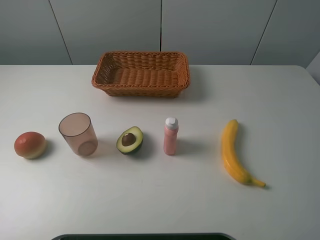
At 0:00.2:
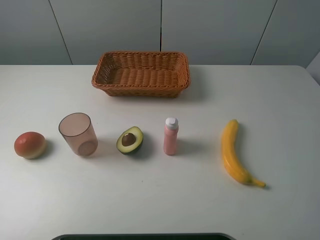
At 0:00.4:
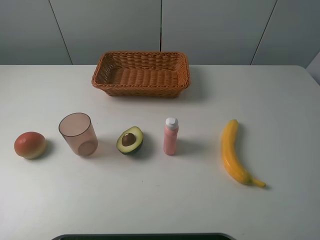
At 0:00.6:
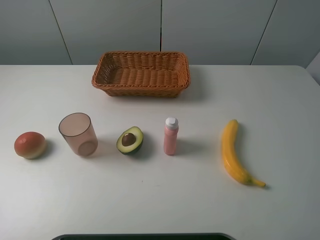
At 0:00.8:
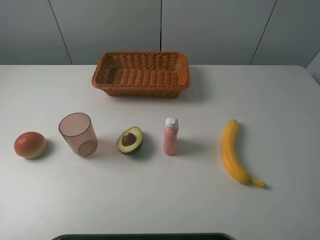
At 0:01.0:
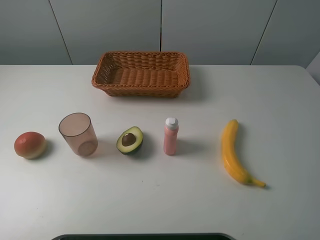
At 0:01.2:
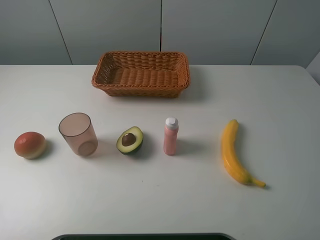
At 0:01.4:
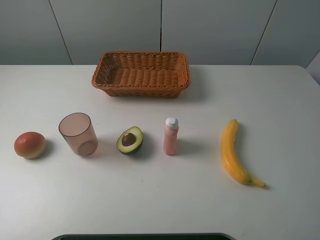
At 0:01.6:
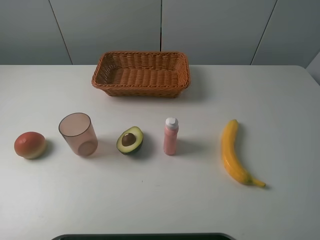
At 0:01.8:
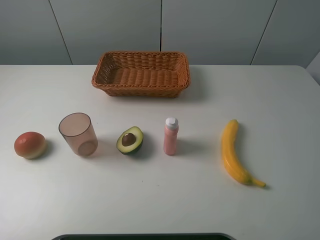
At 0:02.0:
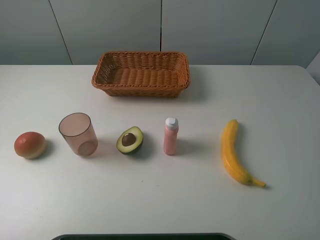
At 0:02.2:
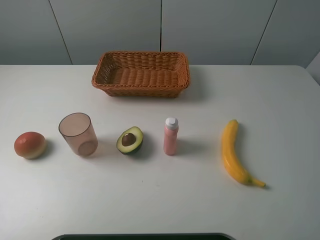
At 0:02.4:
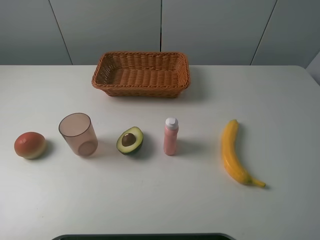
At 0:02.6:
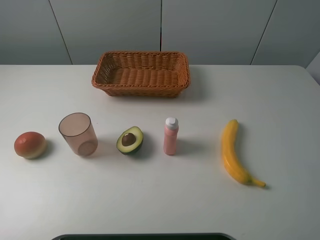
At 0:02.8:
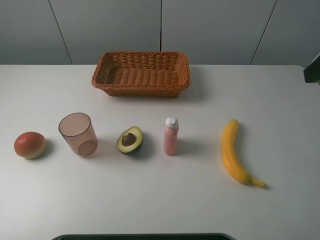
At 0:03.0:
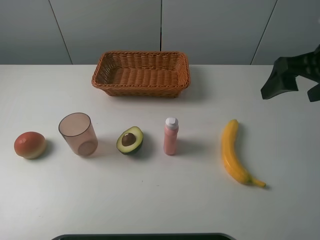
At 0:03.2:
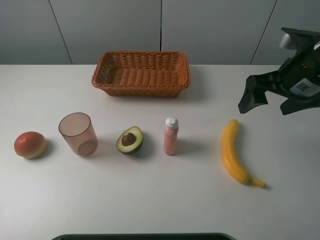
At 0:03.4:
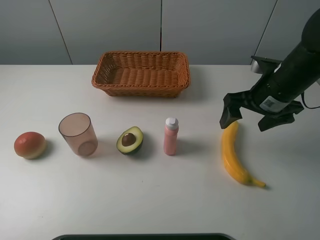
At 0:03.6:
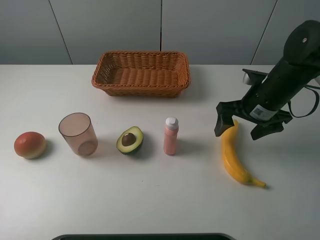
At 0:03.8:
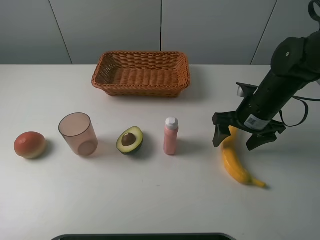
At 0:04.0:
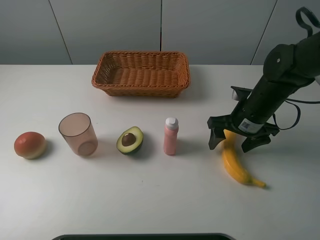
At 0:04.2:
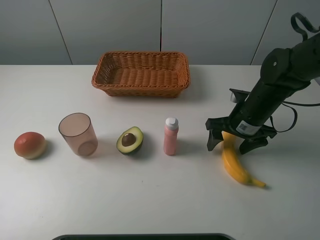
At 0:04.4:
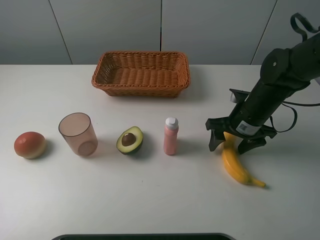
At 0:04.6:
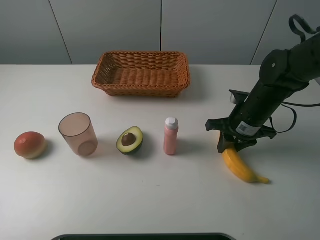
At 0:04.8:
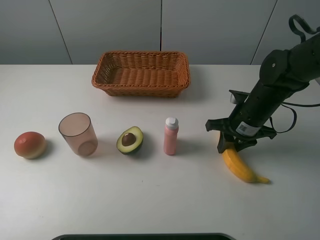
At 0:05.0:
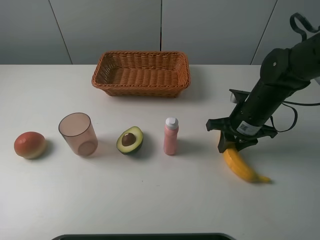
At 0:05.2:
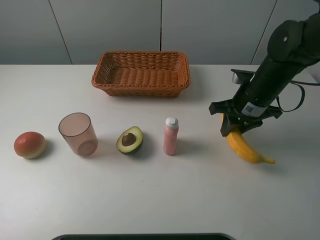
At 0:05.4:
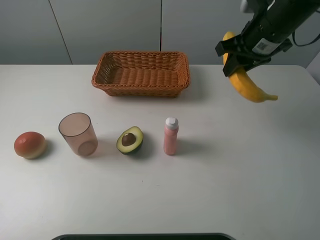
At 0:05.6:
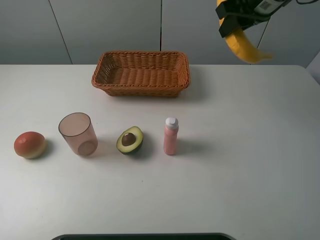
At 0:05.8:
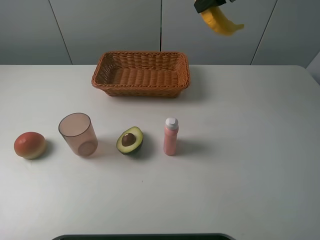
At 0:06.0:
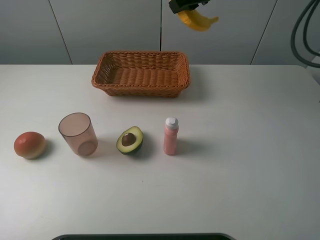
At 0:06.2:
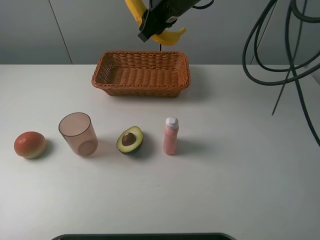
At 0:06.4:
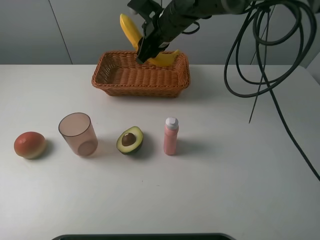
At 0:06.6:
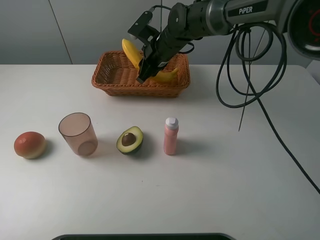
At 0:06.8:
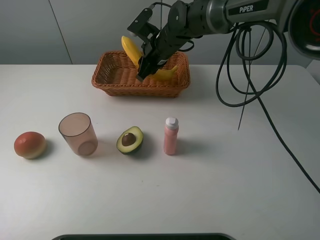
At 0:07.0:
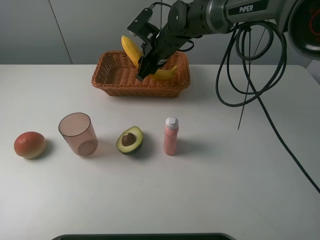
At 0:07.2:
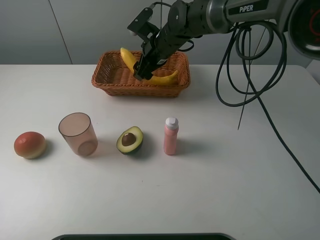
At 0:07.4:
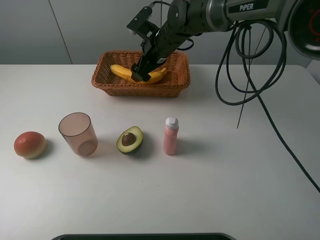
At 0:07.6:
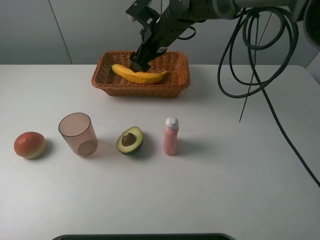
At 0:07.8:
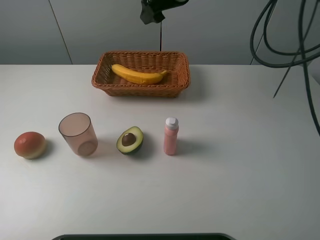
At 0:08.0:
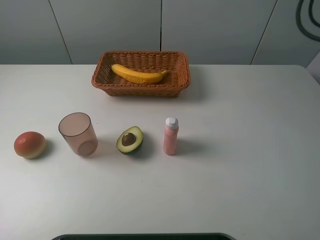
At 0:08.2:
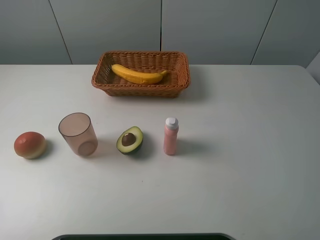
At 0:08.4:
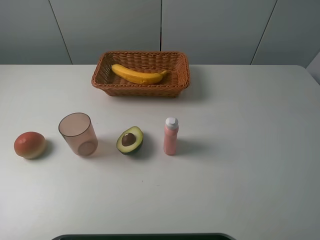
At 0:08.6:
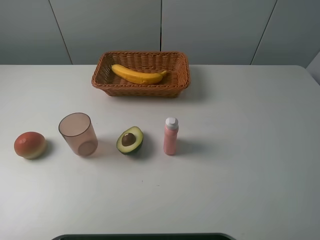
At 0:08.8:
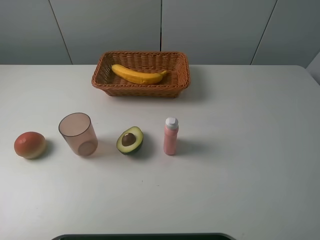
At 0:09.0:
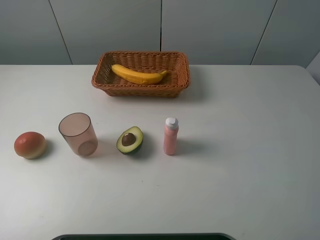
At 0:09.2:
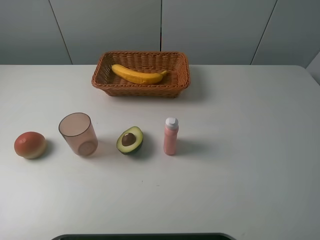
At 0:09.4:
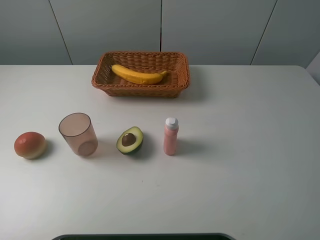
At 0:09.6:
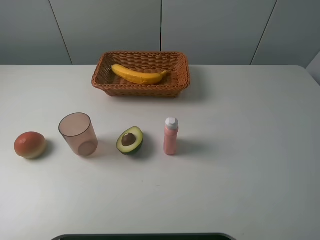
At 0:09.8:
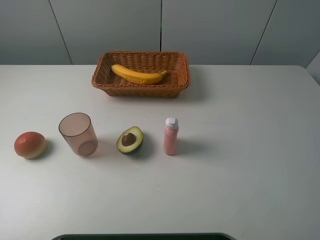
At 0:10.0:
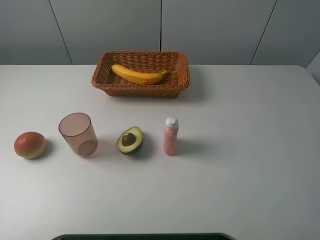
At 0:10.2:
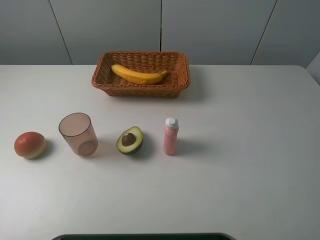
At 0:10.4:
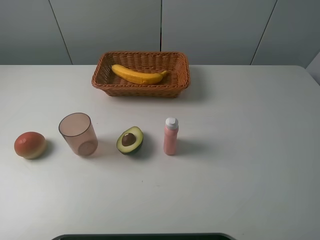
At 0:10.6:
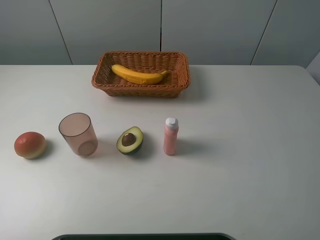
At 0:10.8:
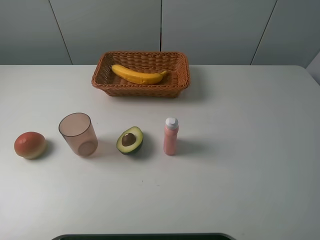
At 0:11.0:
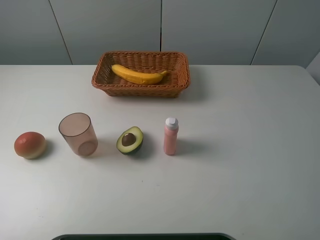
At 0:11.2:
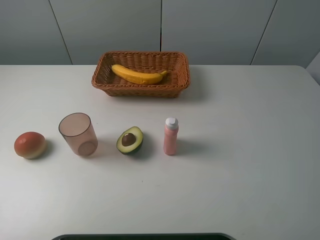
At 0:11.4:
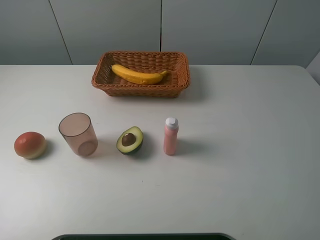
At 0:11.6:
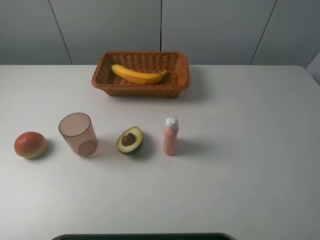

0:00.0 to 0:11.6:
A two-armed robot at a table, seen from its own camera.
Task of the whole recording: randomly pick up an item from the table and put it in the basket.
Step, 0:00.0 to 0:04.6: Grasp the banana with the right gripper.
Step, 0:04.8 to 0:07.6: Place the banana into the basket with the right gripper.
0:00.0 to 0:01.4: Both grippers stay about where they are.
0:02.8 to 0:04.4: The right gripper is displaced downward and forward by roughly 25 cm, and closes up.
0:04.4 to 0:05.8: The right gripper moves upward and forward, about 25 cm, and closes.
0:05.8 to 0:07.2: The right gripper heads downward and to the left, covering approximately 20 cm, and opens its fingers.
0:07.2 to 0:08.8: The right gripper goes some 50 cm backward, to the right and upward.
0:10.2 to 0:11.6: Neither gripper changes place.

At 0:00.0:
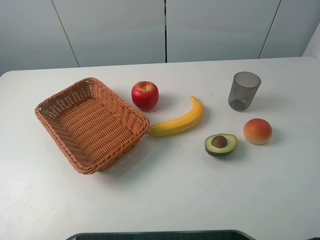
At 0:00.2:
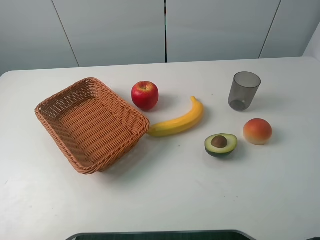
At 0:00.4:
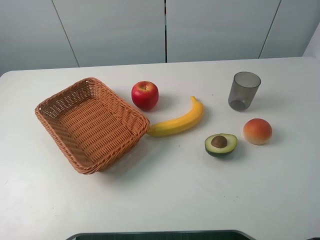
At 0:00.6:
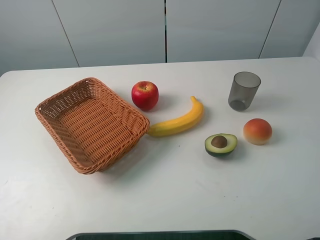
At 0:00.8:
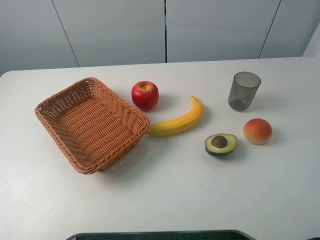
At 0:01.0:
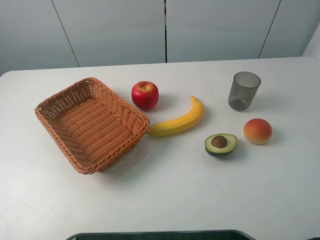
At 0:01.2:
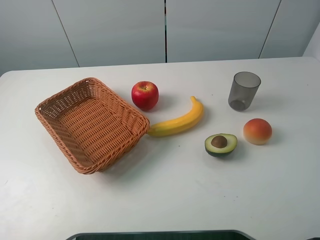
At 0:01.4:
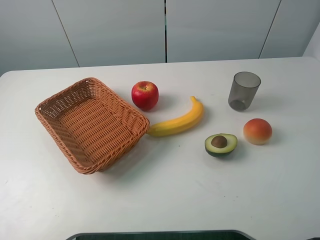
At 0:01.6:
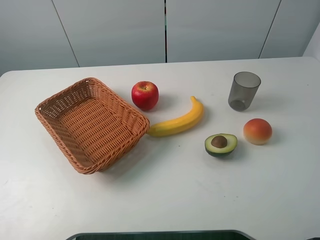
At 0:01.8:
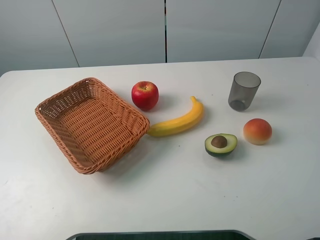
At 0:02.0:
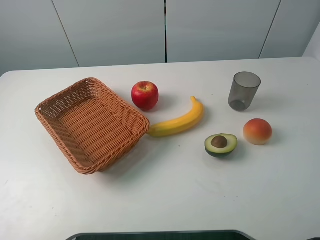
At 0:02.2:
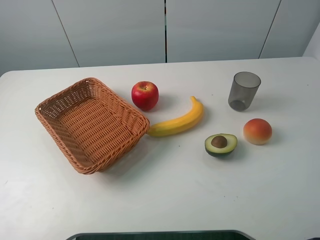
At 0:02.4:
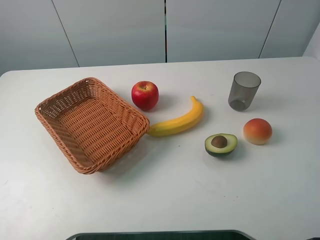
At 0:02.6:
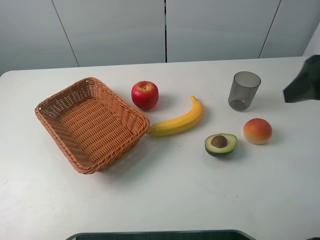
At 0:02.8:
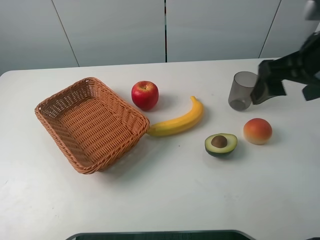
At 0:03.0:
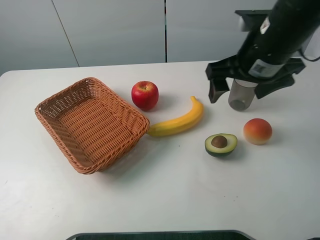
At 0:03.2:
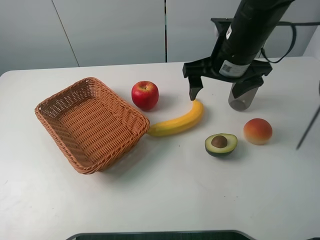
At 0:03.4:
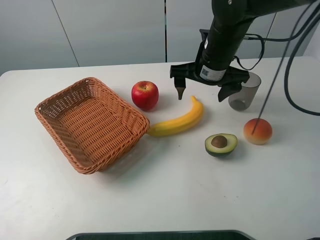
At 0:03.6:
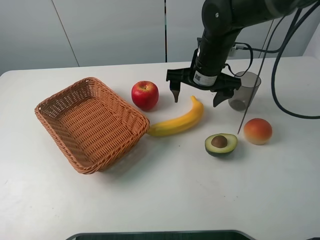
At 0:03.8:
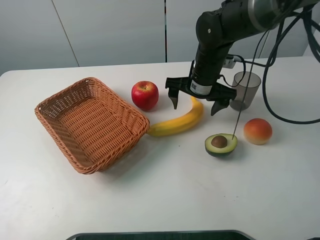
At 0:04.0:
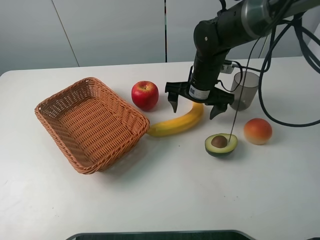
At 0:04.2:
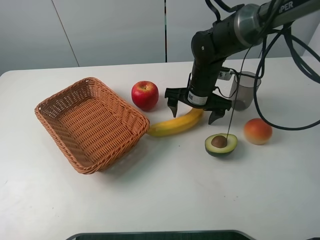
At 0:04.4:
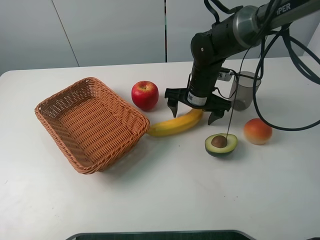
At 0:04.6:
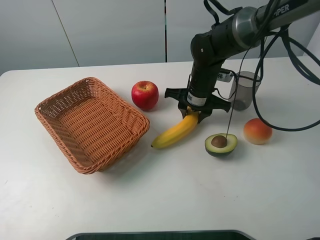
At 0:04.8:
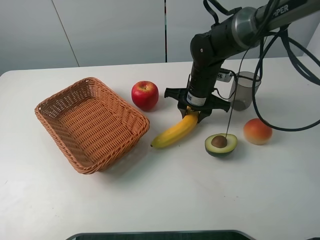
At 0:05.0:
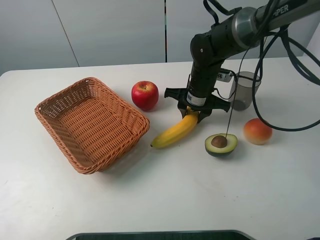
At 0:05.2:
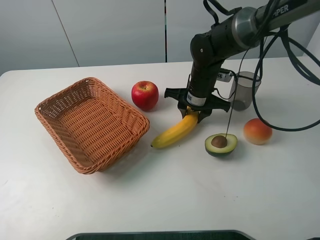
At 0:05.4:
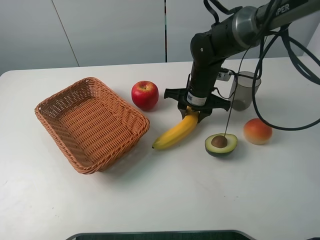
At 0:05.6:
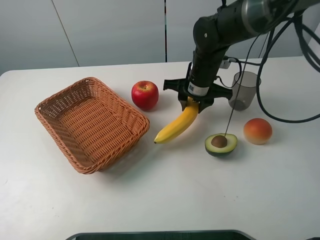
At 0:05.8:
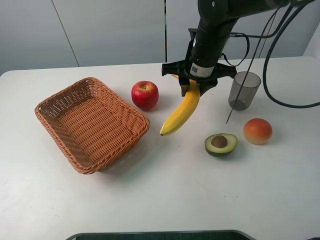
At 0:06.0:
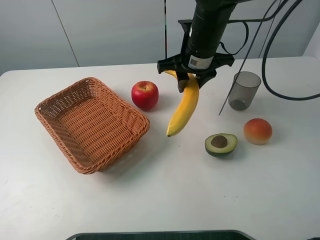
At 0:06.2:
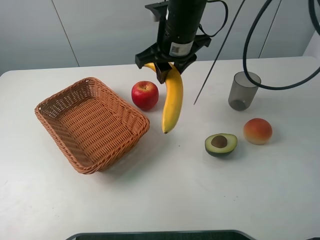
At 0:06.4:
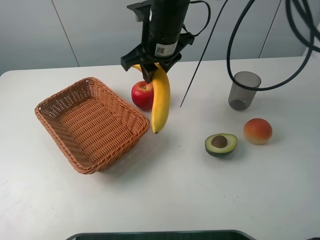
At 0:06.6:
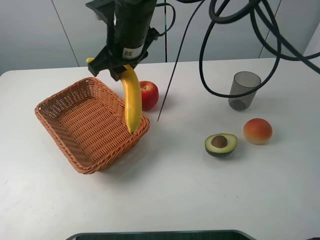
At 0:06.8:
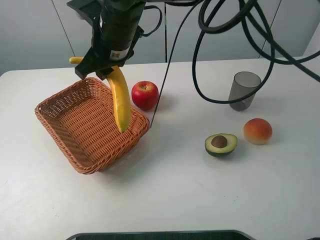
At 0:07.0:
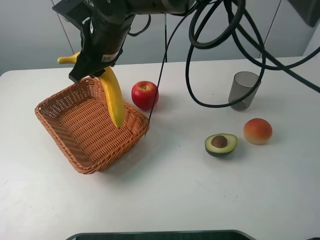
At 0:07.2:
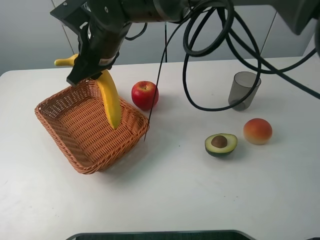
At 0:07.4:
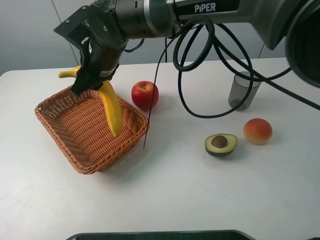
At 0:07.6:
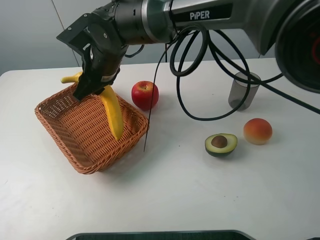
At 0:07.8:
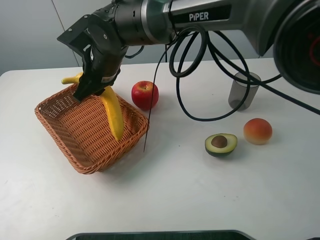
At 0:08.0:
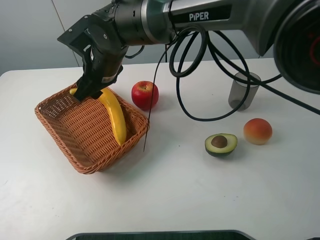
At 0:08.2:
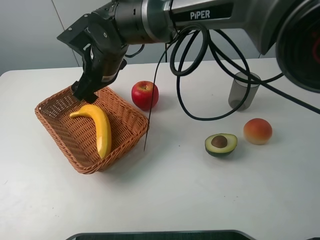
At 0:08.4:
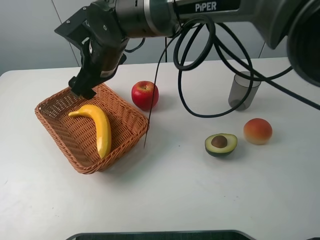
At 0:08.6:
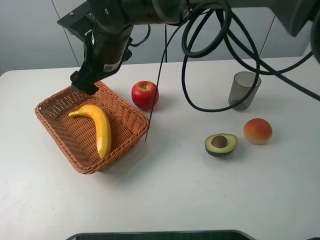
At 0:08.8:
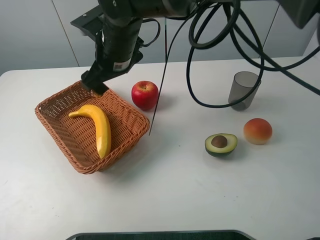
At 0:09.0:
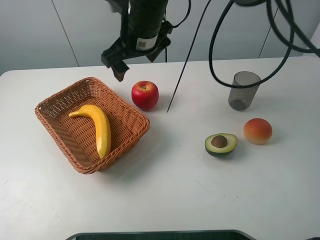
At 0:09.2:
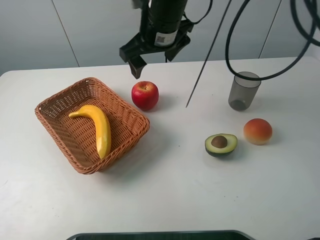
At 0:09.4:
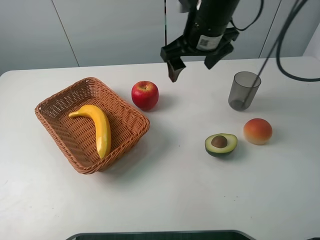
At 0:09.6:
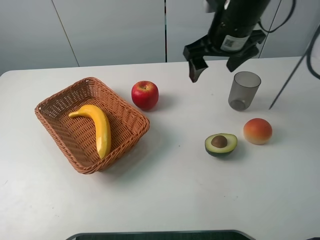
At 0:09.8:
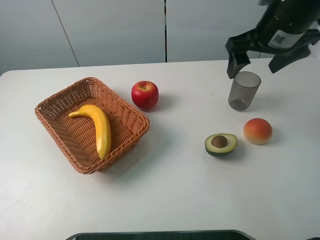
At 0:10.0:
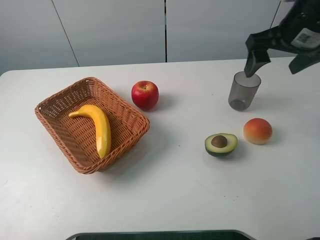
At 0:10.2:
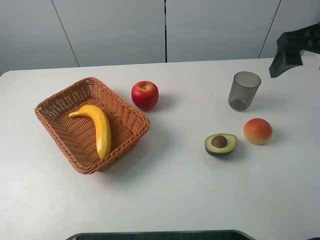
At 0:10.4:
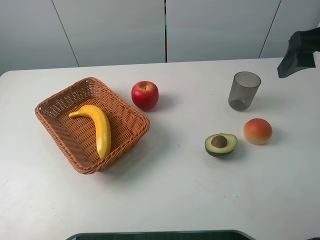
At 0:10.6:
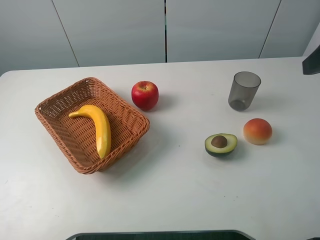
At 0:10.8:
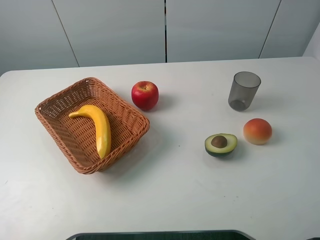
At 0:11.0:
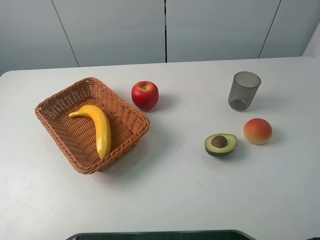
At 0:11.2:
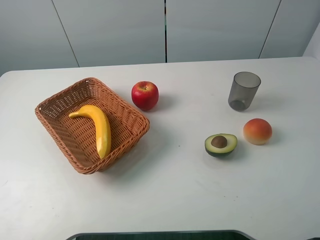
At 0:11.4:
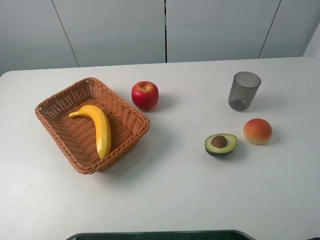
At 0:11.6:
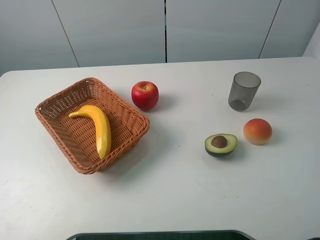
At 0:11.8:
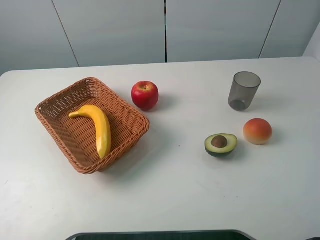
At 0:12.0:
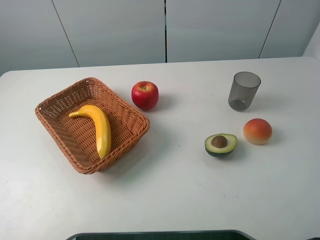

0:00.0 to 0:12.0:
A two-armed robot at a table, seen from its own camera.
Task of the whole recording: randomly pick up an item from the table and put it in the basket.
Step, 0:00.0 to 0:04.8: Grasp the banana with the right gripper.
Step, 0:05.0 to 0:08.4: Place the banana into the basket with the right gripper.
0:00.0 to 0:01.6: The two grippers keep their place.
0:01.6 to 0:03.0: The right gripper is displaced forward and to the left by approximately 30 cm.
0:03.0 to 0:04.4: The right gripper shifts some 20 cm downward, forward and to the left.
0:04.4 to 0:06.0: The right gripper shifts roughly 10 cm upward, and closes up.
0:06.0 to 0:07.6: The right gripper goes some 20 cm to the left.
0:07.6 to 0:09.0: The right gripper heads to the right and upward, covering roughly 10 cm, and opens up.
0:09.0 to 0:10.4: The right gripper goes approximately 30 cm to the right.
0:10.4 to 0:12.0: The right gripper moves backward, some 20 cm.
